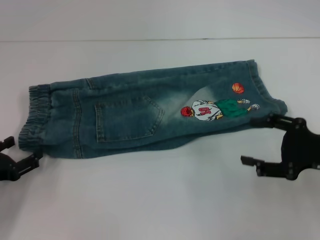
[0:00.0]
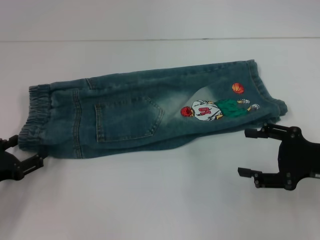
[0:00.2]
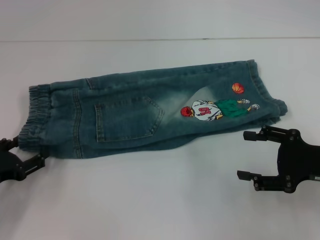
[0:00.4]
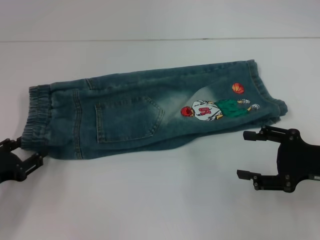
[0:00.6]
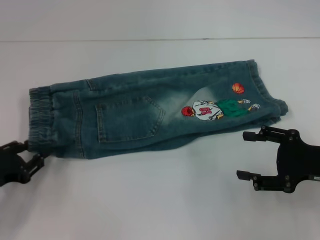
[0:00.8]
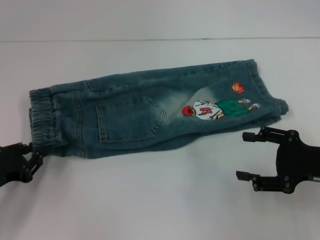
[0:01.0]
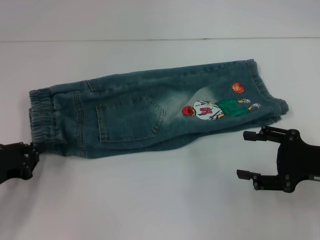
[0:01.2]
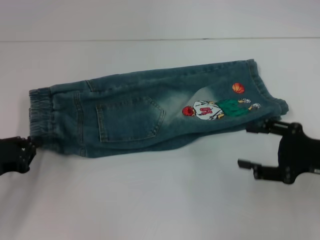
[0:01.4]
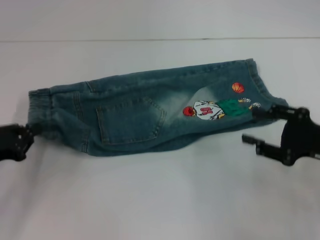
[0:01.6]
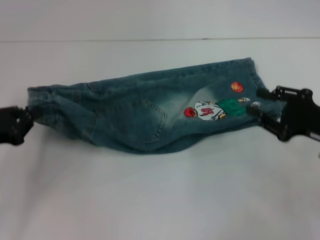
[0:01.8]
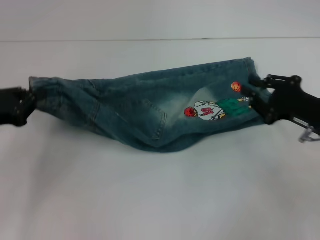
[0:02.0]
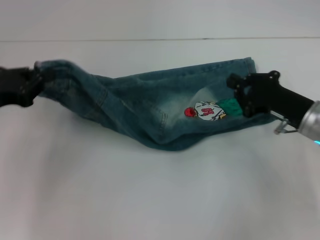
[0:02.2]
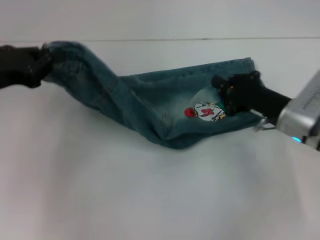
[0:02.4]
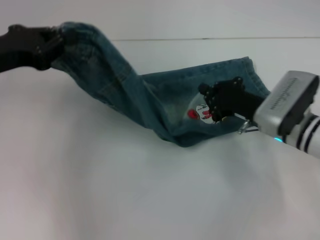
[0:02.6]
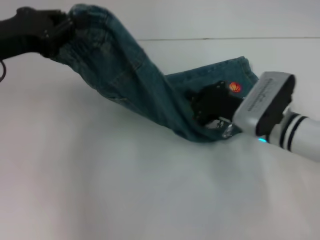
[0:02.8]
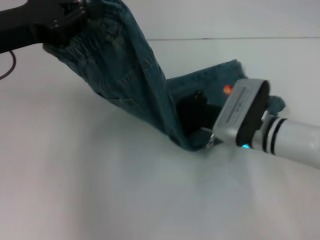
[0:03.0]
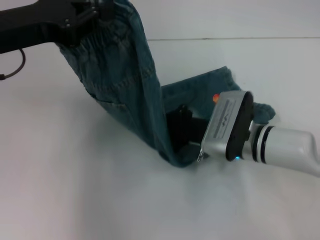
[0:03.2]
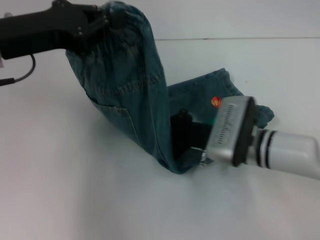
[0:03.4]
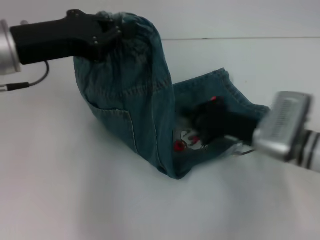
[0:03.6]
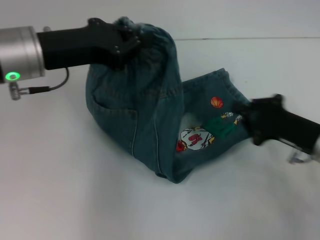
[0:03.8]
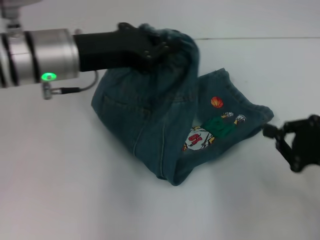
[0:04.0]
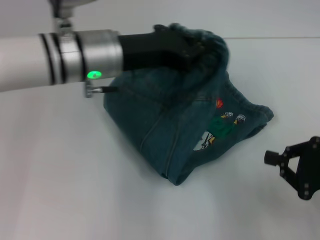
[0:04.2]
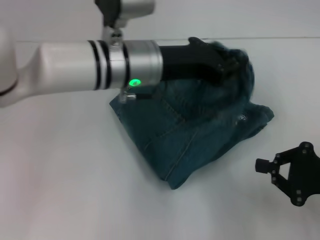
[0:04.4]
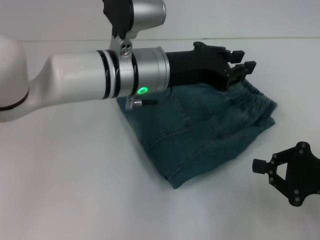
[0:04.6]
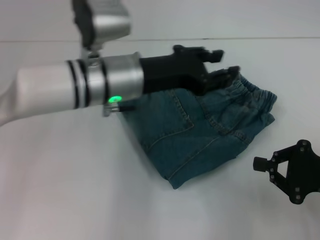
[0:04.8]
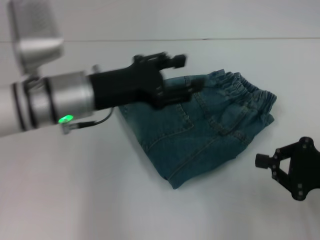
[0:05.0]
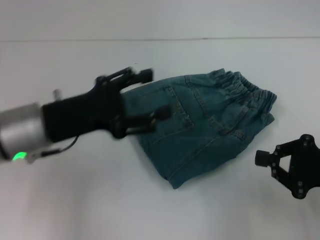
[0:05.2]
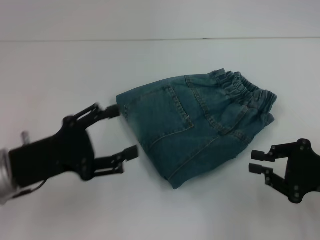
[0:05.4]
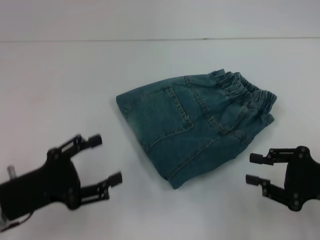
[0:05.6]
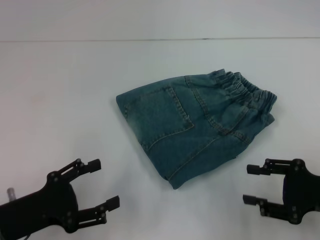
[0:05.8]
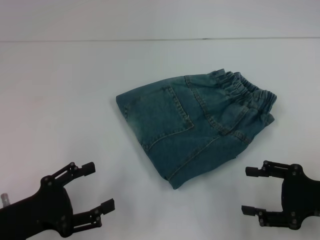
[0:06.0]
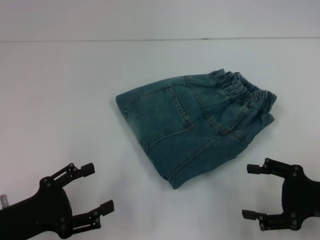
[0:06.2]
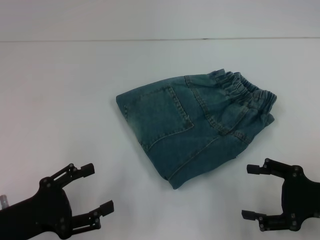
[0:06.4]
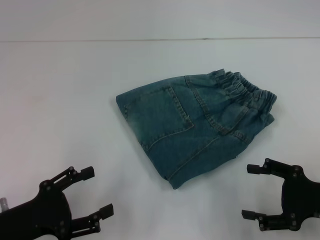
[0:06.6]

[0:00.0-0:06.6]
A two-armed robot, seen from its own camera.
Step, 0:01.6 to 0:03.2: Press the middle of the pants with your right hand.
Step, 0:03.4 to 0:04.4: Fold to the right with your left hand.
0:00.0 to 0:01.6: The left gripper closes.
0:01.6 to 0:03.2: The right gripper goes about 20 cm to the left and forward, and closes, while the left gripper travels upward, to the right and forward by about 20 cm.
0:03.2 to 0:05.0: The right gripper travels to the right and backward by some 20 cm. Meanwhile the left gripper travels to the right and downward by roughly 10 cm, and opens up.
0:05.0 to 0:06.6: The left gripper goes some 20 cm backward, to the left and downward, and opens its fingers. Meanwhile the right gripper opens.
